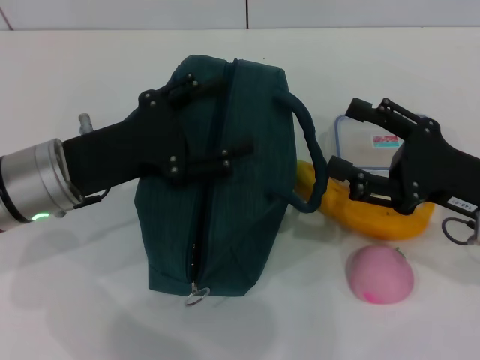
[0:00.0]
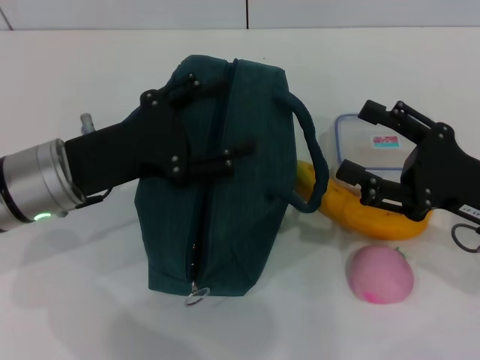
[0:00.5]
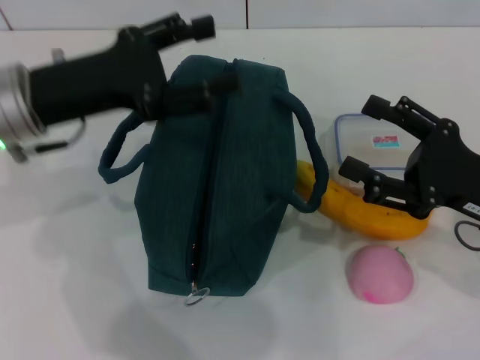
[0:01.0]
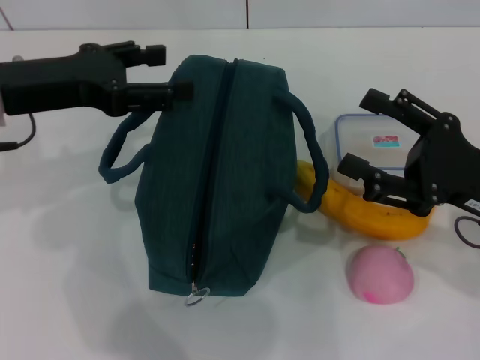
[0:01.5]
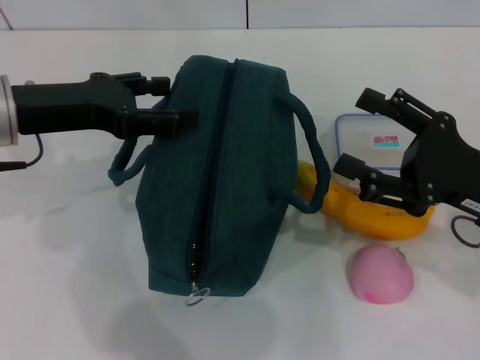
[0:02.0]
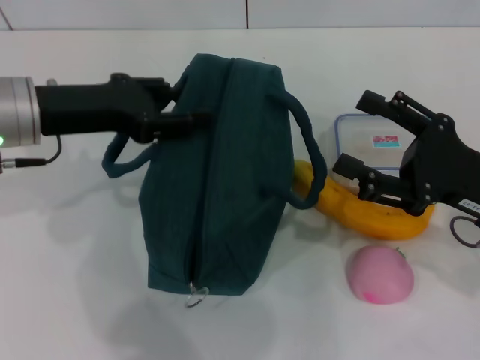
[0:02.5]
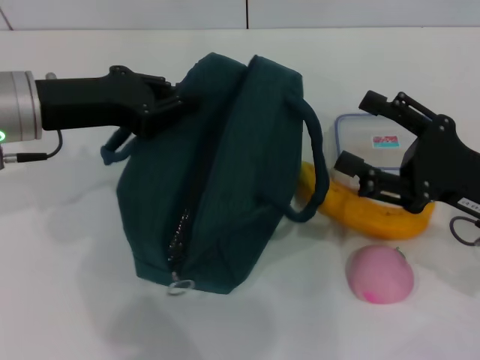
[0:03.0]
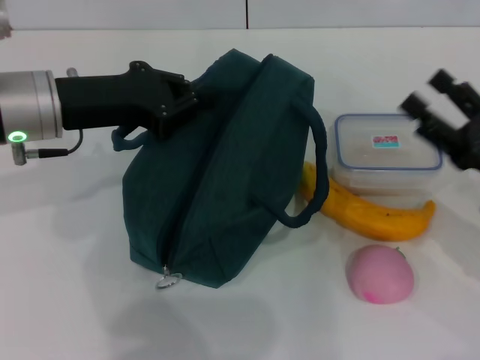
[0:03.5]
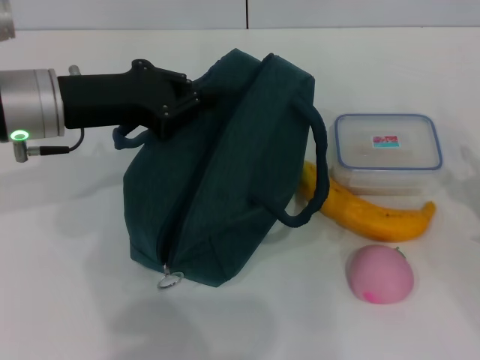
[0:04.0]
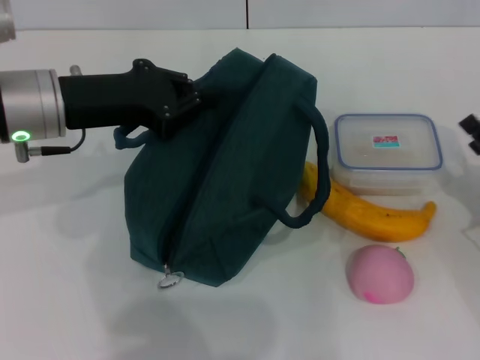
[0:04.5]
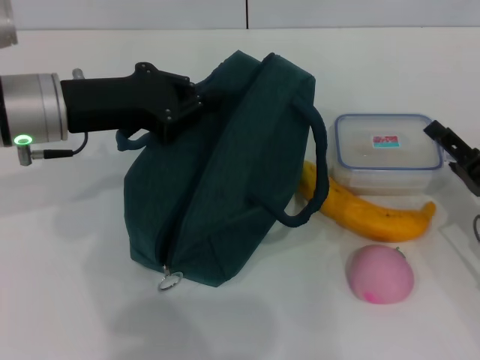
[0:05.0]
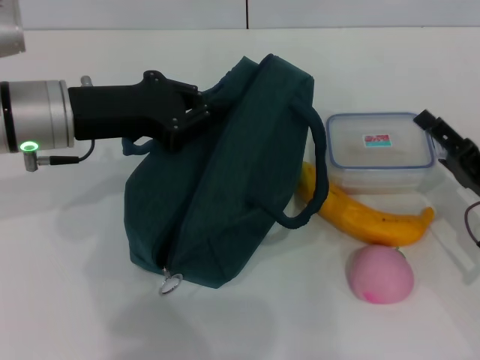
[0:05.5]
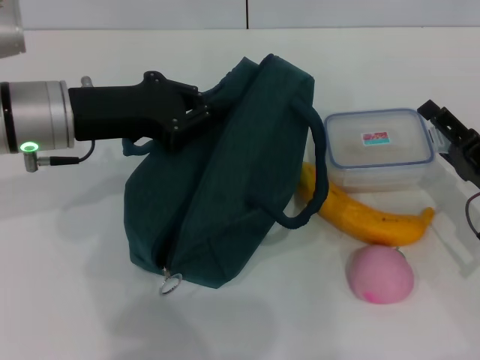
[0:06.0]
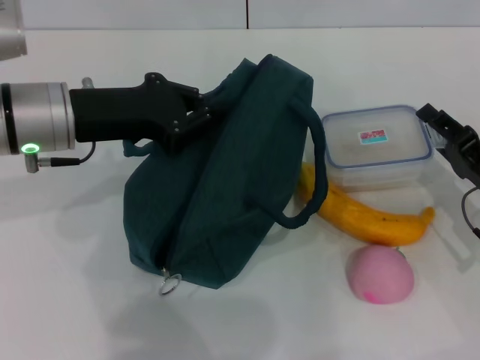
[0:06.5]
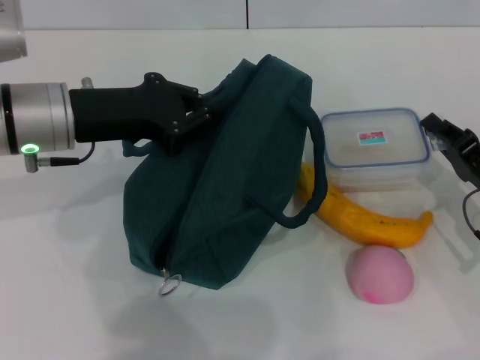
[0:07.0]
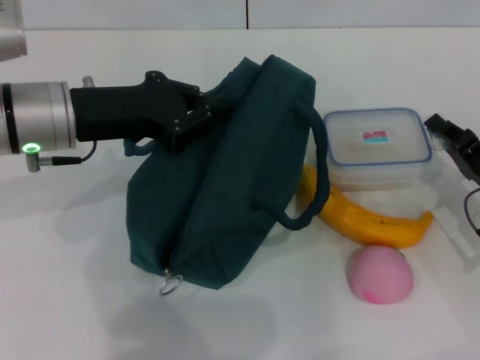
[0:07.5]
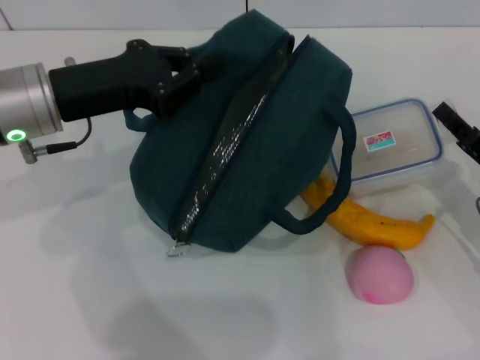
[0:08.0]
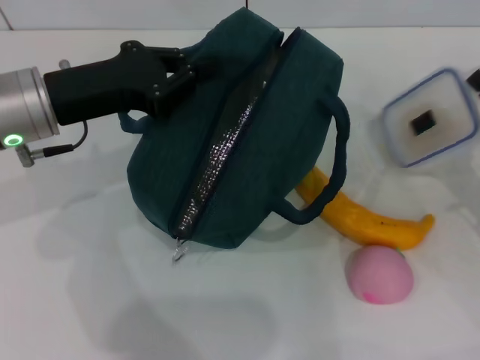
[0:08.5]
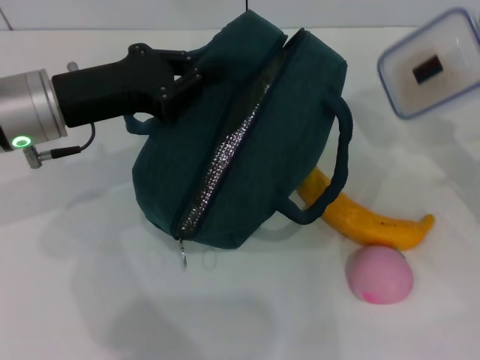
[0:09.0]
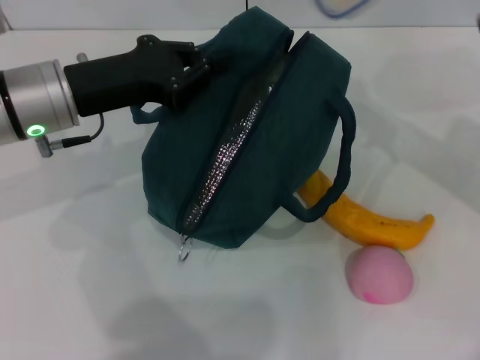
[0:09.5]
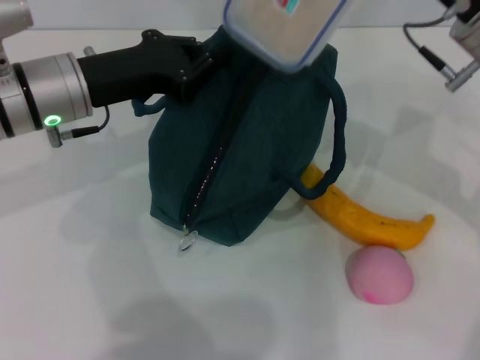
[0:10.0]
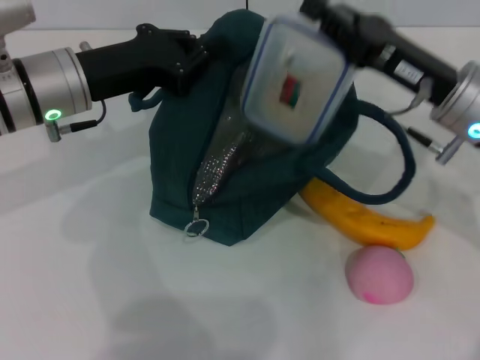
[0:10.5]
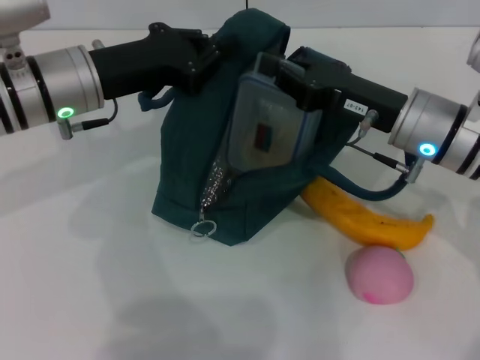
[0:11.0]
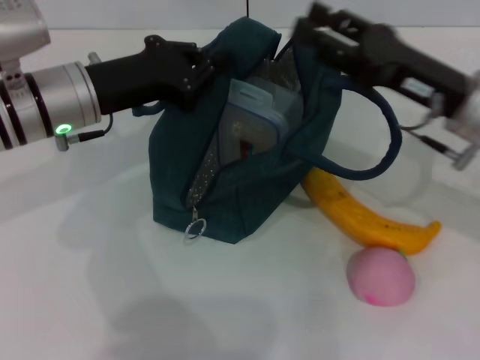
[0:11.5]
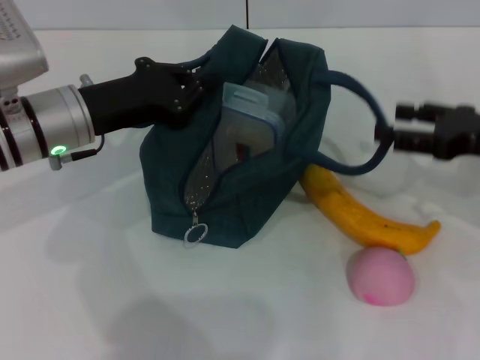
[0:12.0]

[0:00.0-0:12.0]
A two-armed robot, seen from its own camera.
Step, 0:00.0 to 0:02.5: Hold the lunch bag with your left hand.
Step, 0:03.0 to 0:07.0: Pick up the lunch box with your right hand.
Step, 0:08.0 to 0:11.0: Place the lunch box into the lunch bag with your right hand.
0:00.0 to 0:02.0: The left gripper heads upward, covering about 5 cm.
0:02.0 to 0:04.0: The left gripper closes up, while the right gripper travels to the right and downward by approximately 10 cm.
0:04.0 to 0:06.0: The right gripper moves approximately 5 cm.
0:06.0 to 0:08.0: The right gripper closes up.
0:08.0 to 0:10.0: The right gripper moves upward, to the left and forward, some 20 cm.
0:10.0 to 0:12.0: The right gripper heads to the right and downward, covering roughly 10 cm, and opens.

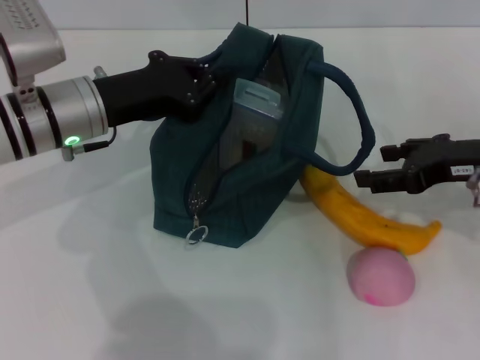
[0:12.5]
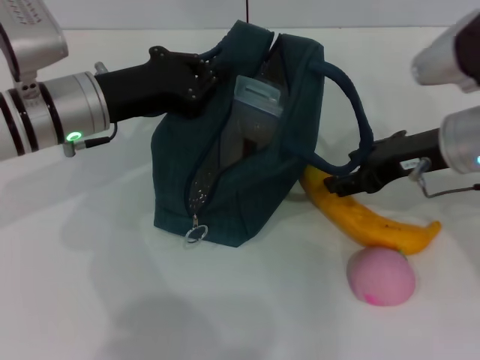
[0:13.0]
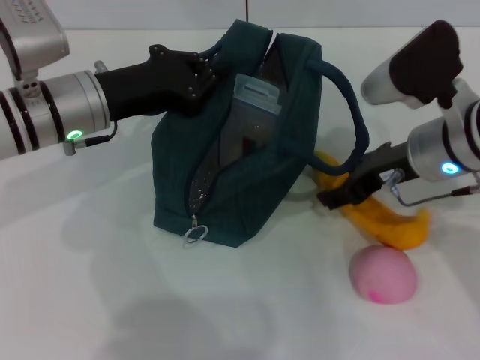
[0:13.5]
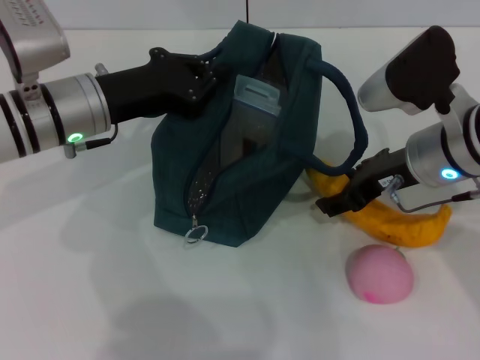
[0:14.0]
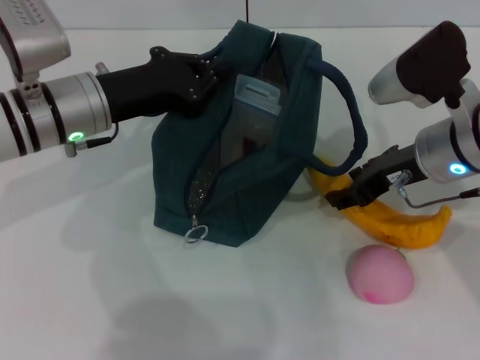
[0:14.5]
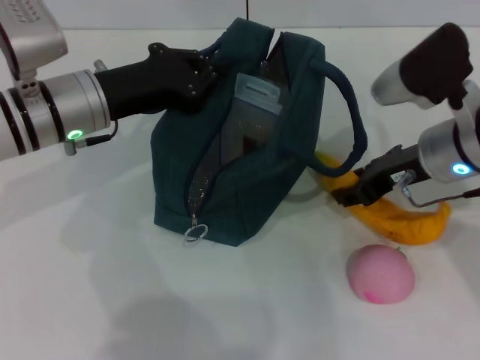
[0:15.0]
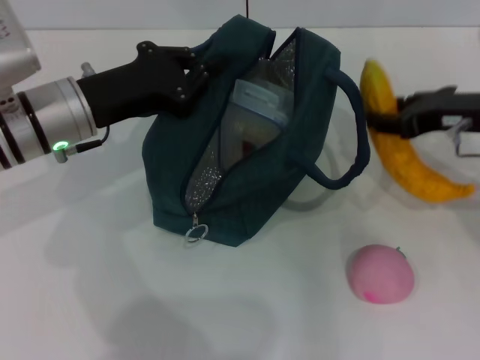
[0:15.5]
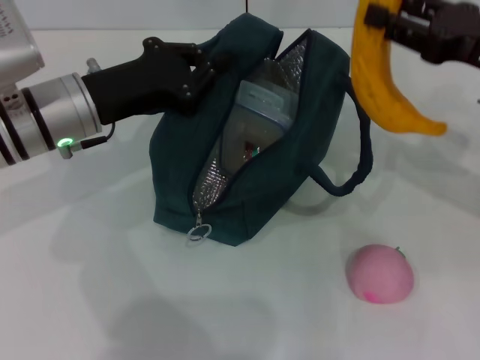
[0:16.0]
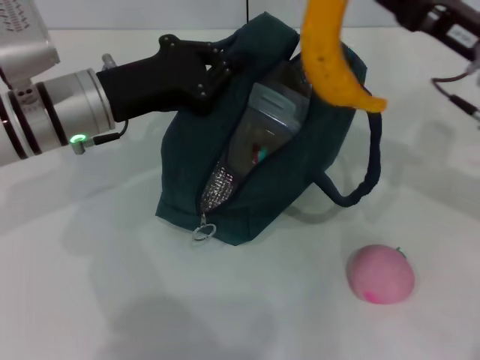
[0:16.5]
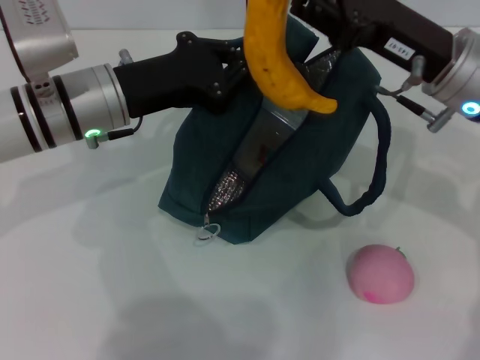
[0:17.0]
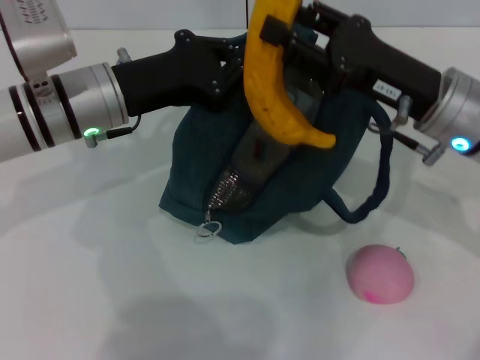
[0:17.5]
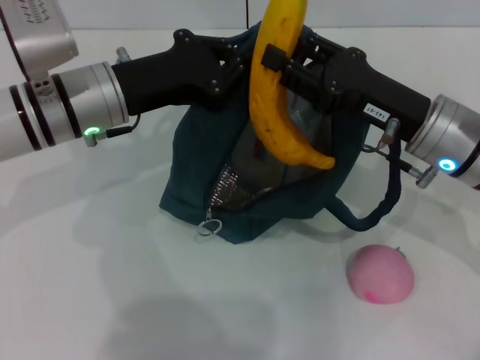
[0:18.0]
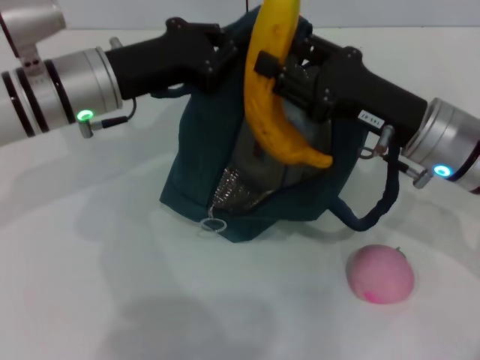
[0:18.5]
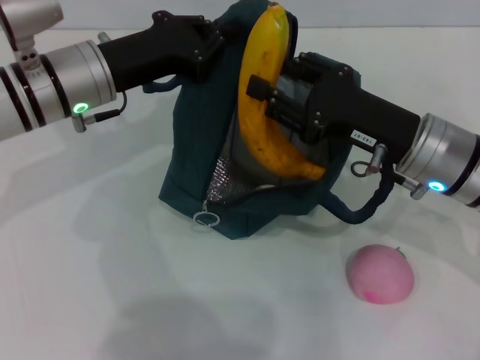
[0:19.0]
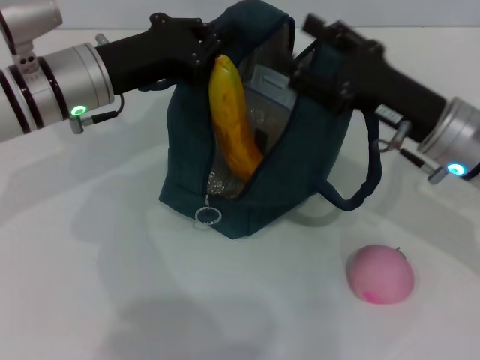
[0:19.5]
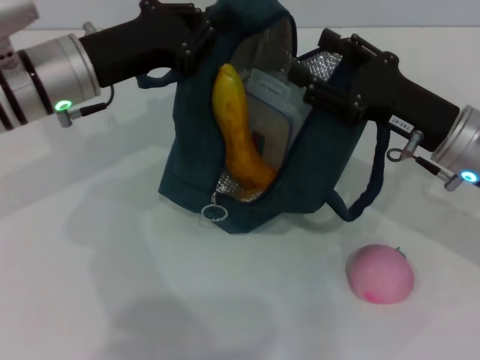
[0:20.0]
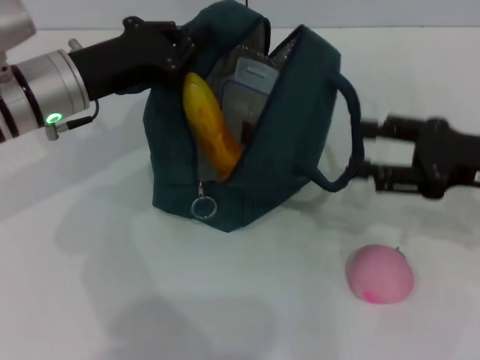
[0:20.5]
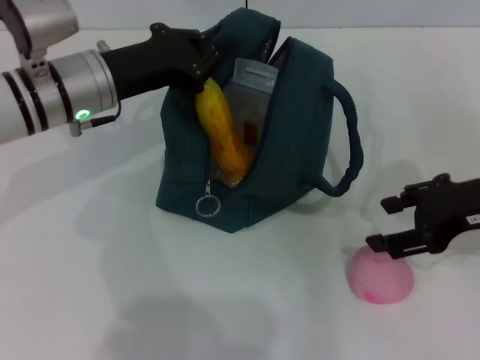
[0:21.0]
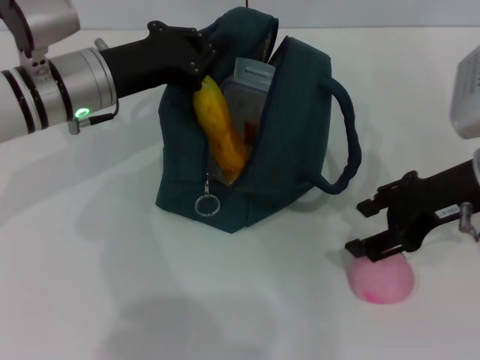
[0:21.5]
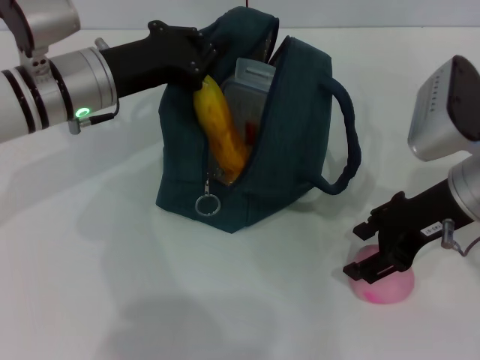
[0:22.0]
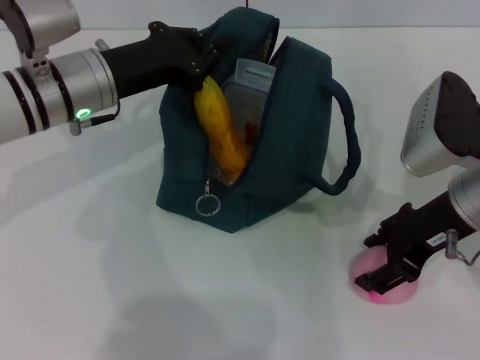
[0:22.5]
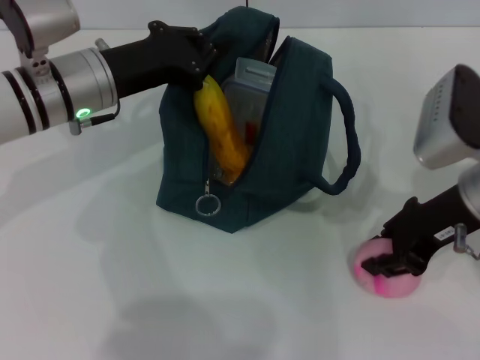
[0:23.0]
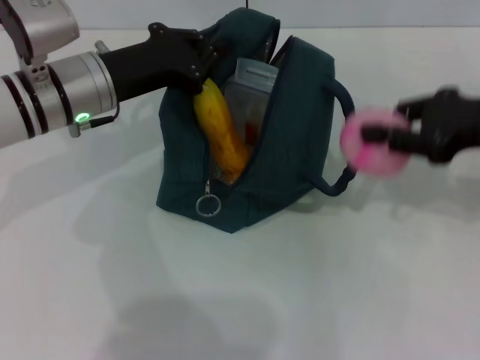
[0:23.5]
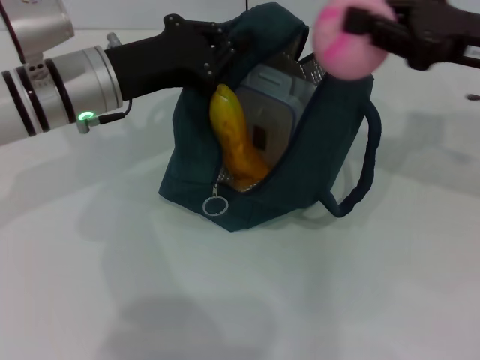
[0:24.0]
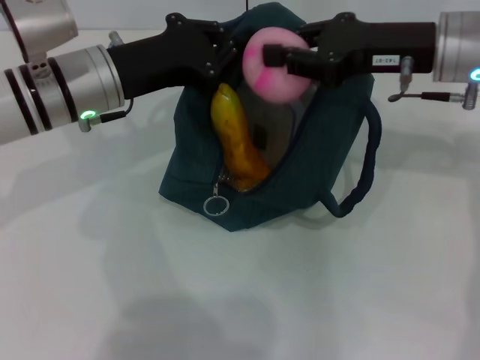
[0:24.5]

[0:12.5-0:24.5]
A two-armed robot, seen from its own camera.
Step, 0:12.5 to 0:14.5: Take the banana with your right hand.
Step, 0:15.0 to 0:19.5: Put the banana into the lunch bag with your right hand.
Step, 0:20.0 to 0:22.5: Grab the peach with your right hand.
0:12.5 to 0:14.5: The right gripper travels to the left by approximately 10 cm.
0:14.5 to 0:16.5: The right gripper is displaced to the right by approximately 5 cm.
0:16.5 to 0:18.5: The right gripper travels to the left by approximately 5 cm.
0:18.5 to 0:20.5: The right gripper moves to the right, approximately 10 cm.
0:20.5 to 0:22.5: The right gripper moves to the left, some 10 cm.
0:22.5 to 0:24.5: The right gripper is displaced forward by some 10 cm, travels to the right and back again, some 5 cm each way, and closes.

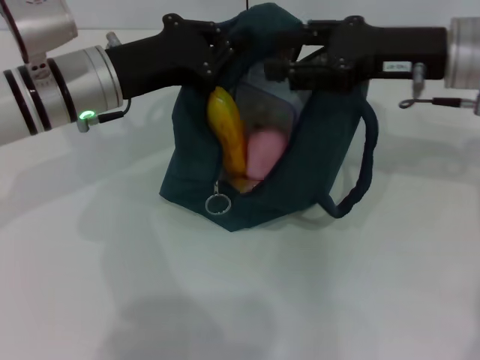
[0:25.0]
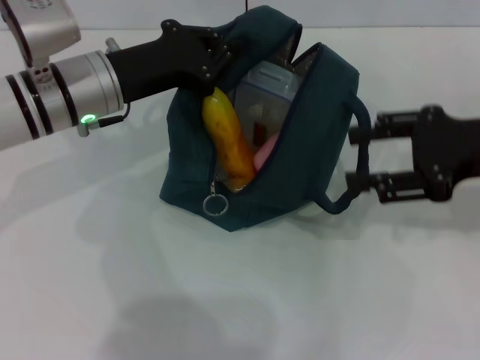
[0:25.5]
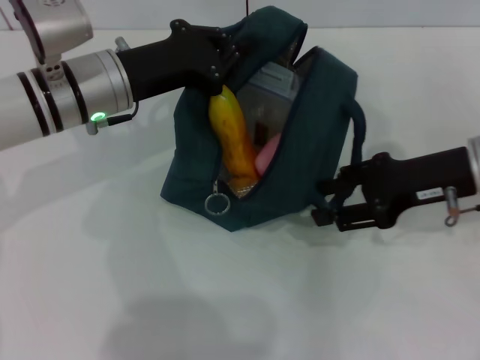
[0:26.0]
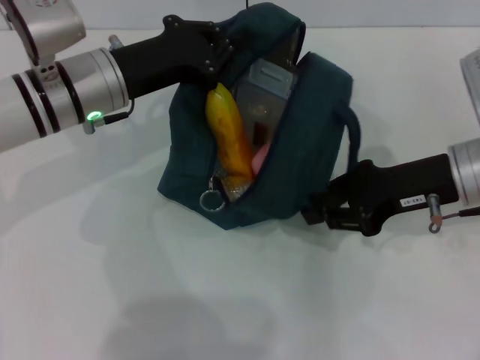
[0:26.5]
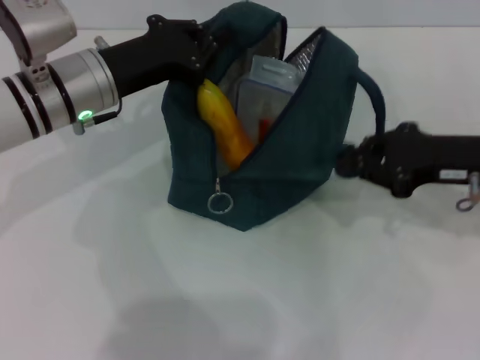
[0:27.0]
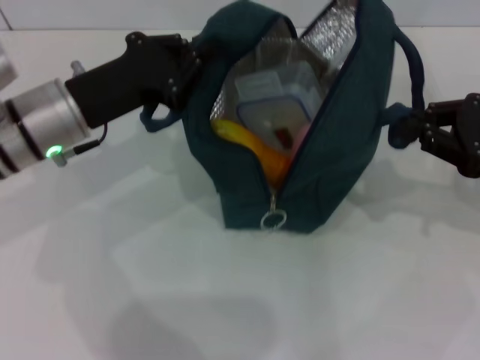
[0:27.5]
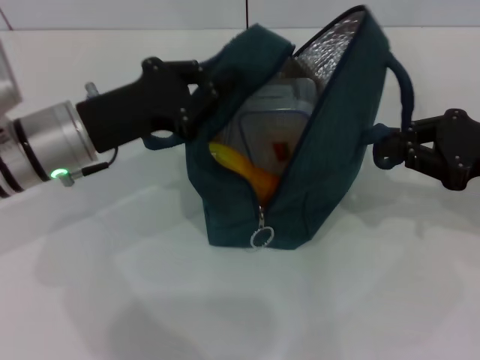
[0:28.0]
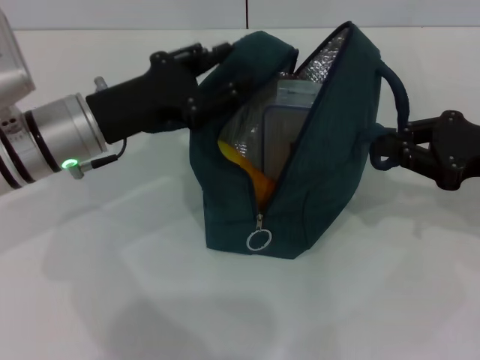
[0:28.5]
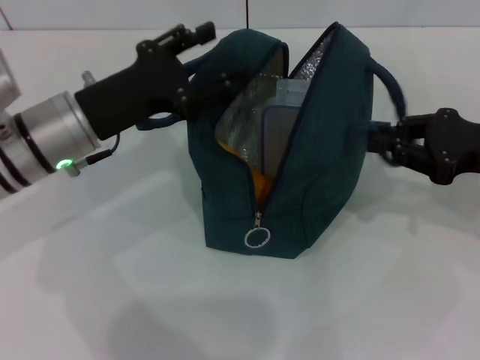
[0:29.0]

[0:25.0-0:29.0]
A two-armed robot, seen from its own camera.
0:25.0 to 0:27.0: The right gripper shifts about 10 cm downward, backward and to the right, and closes.
0:27.0 to 0:29.0: The left gripper opens up.
